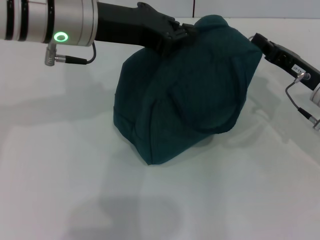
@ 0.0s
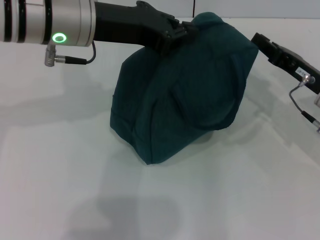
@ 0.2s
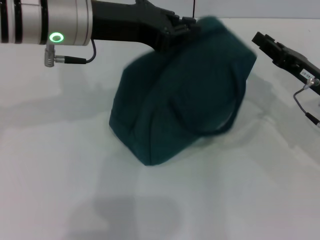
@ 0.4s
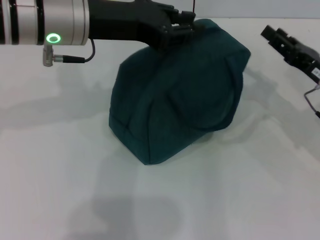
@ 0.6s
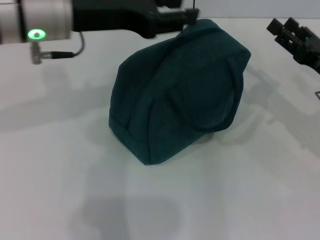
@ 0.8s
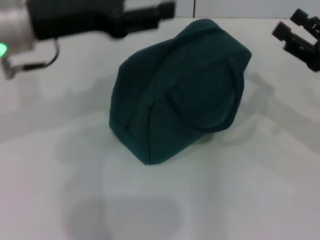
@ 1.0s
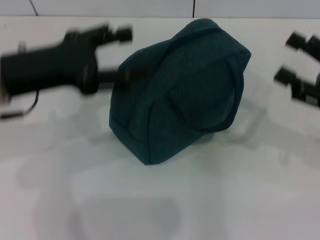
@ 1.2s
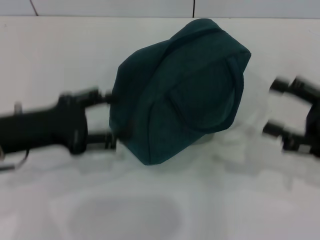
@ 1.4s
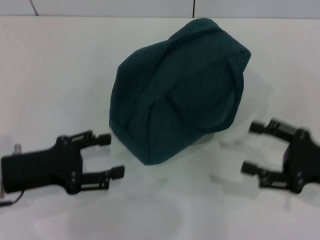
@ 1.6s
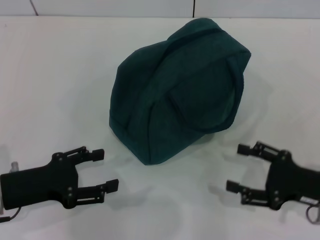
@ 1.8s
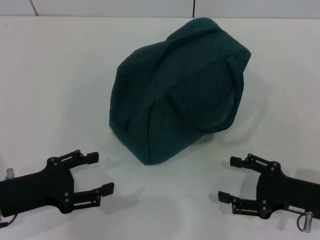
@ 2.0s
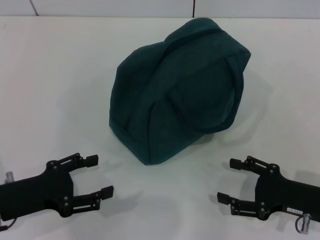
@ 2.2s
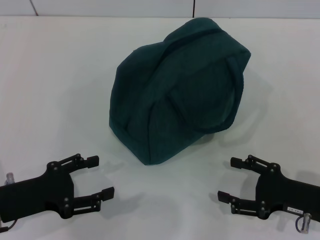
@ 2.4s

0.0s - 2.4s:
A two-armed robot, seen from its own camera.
Step, 0.2s - 0.6s: Hold the lunch bag with your left hand.
0.0s - 1.2s: The right gripper is displaced backward and to the right by some 10 cm, and opens; the left gripper is displaced to the left, backward and downward by about 15 cm, and opens.
1.2s - 2.4s: The grippers both shift downward and backward by approximately 15 cm.

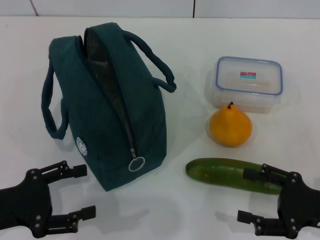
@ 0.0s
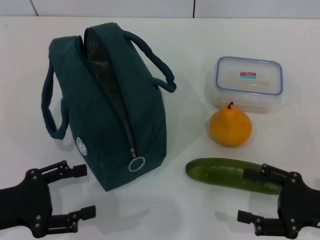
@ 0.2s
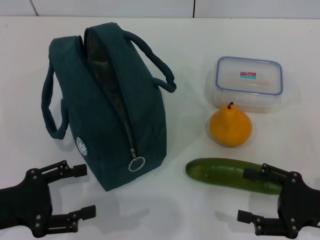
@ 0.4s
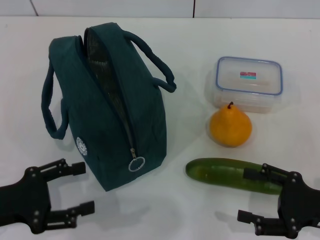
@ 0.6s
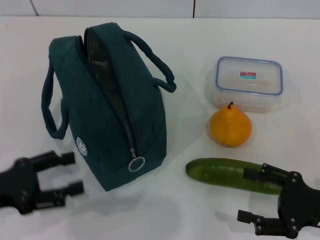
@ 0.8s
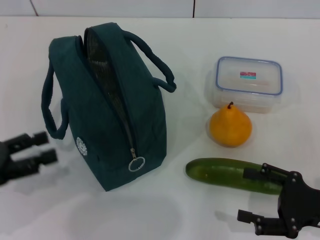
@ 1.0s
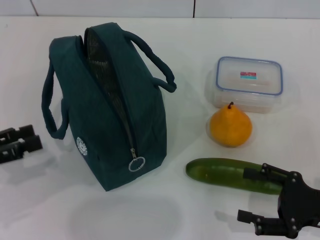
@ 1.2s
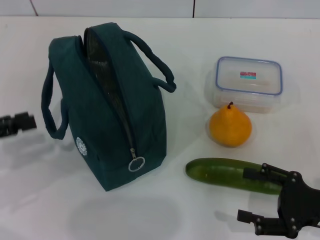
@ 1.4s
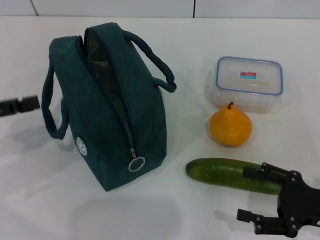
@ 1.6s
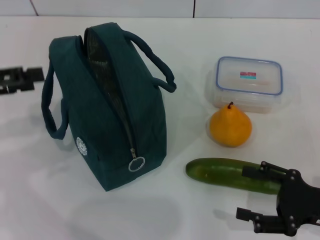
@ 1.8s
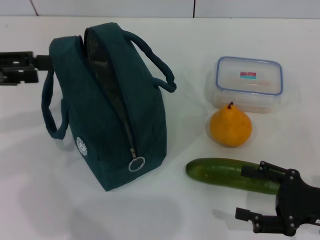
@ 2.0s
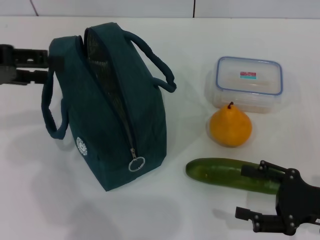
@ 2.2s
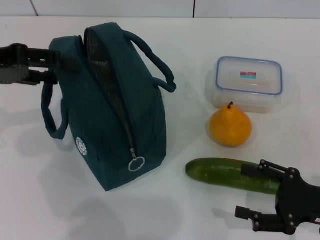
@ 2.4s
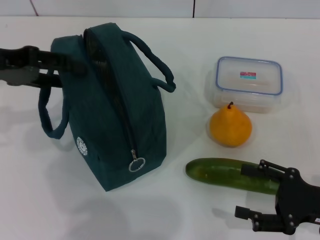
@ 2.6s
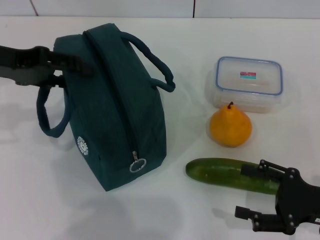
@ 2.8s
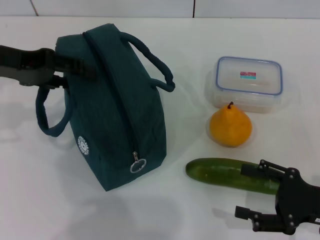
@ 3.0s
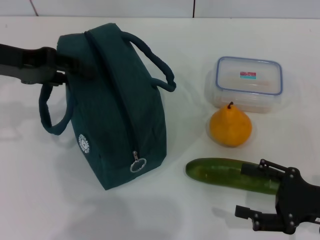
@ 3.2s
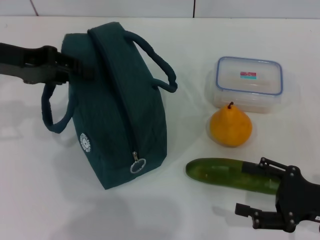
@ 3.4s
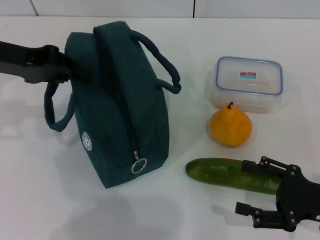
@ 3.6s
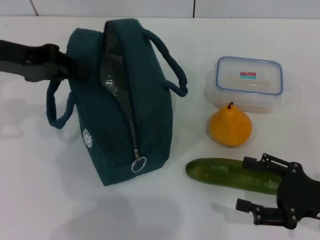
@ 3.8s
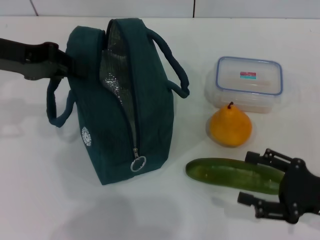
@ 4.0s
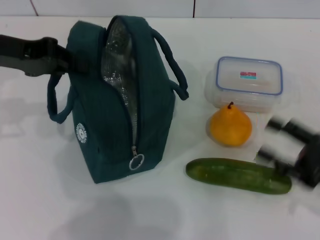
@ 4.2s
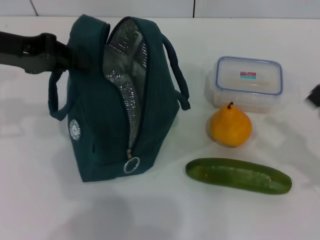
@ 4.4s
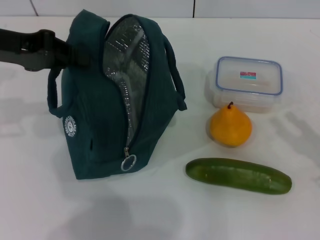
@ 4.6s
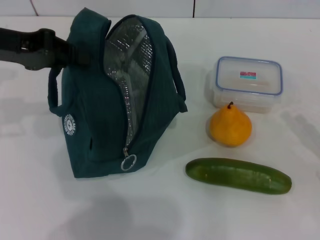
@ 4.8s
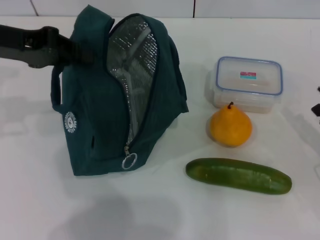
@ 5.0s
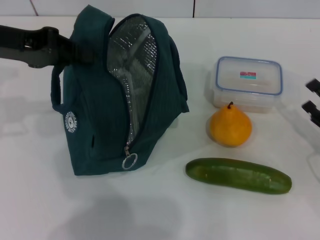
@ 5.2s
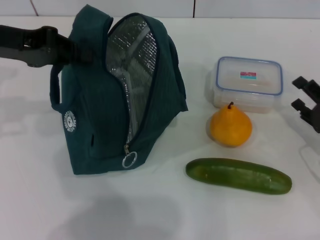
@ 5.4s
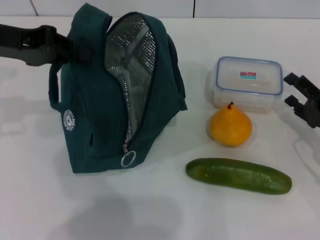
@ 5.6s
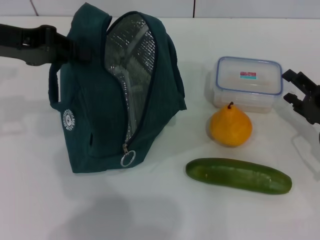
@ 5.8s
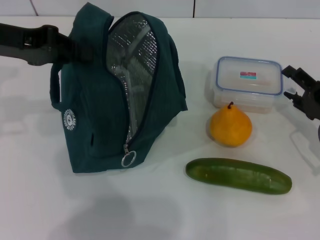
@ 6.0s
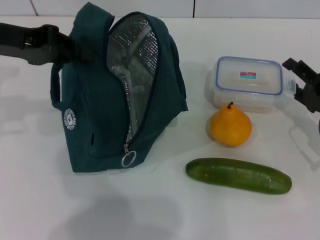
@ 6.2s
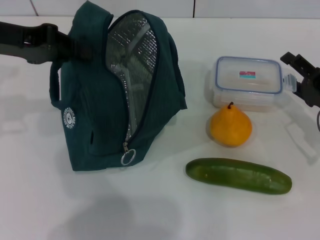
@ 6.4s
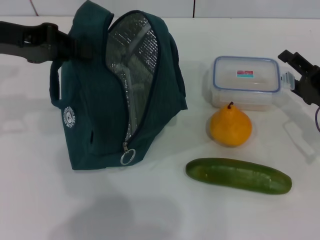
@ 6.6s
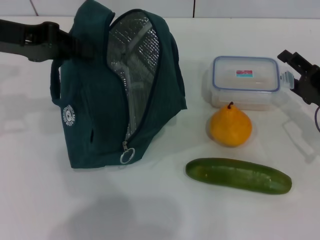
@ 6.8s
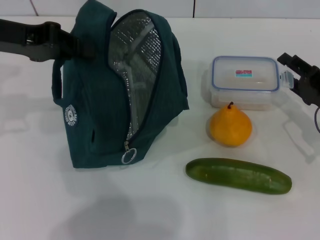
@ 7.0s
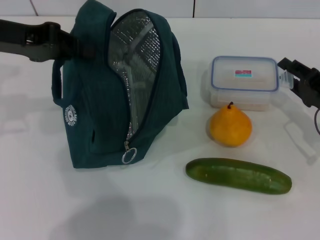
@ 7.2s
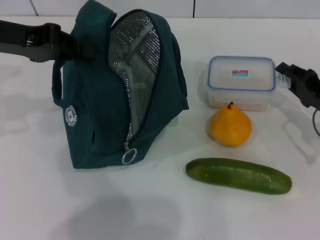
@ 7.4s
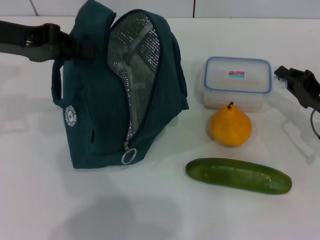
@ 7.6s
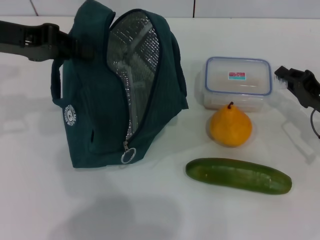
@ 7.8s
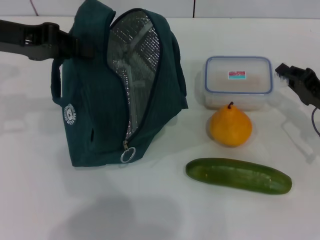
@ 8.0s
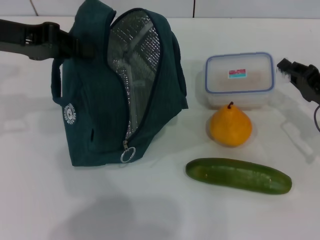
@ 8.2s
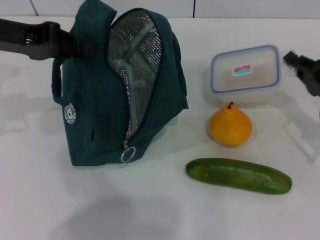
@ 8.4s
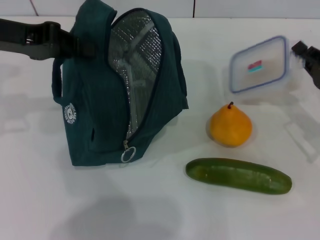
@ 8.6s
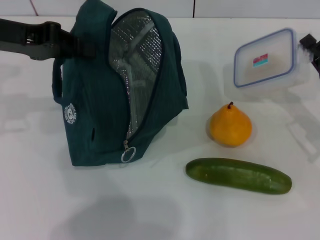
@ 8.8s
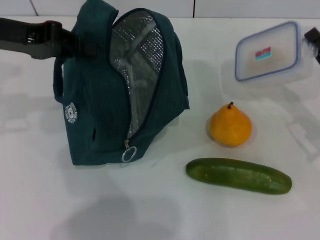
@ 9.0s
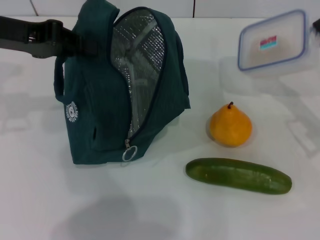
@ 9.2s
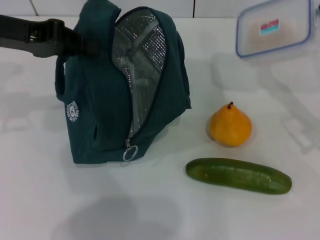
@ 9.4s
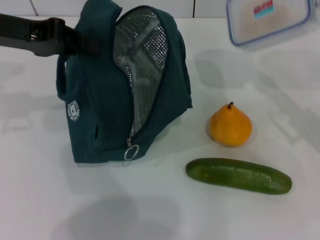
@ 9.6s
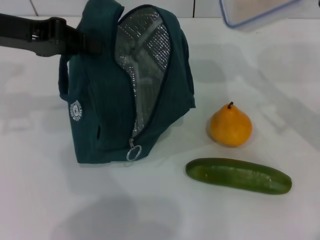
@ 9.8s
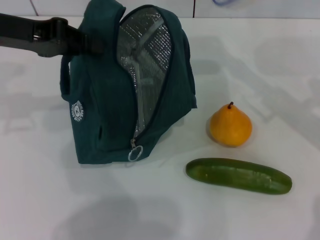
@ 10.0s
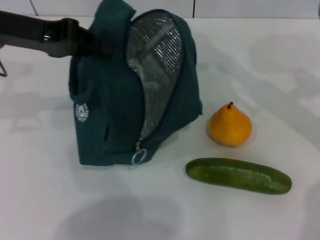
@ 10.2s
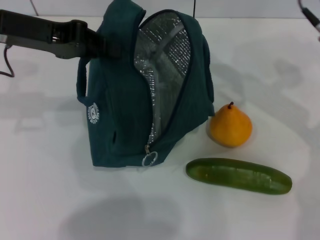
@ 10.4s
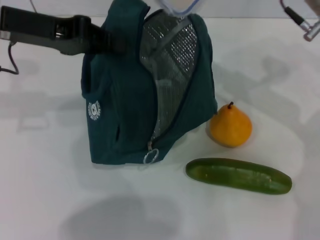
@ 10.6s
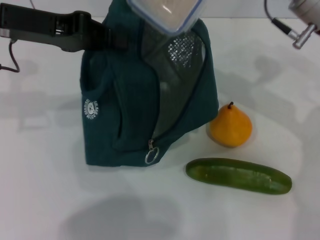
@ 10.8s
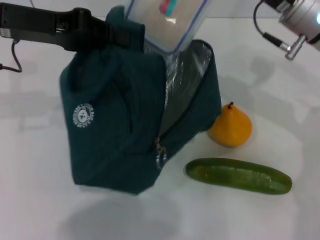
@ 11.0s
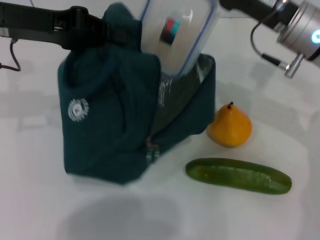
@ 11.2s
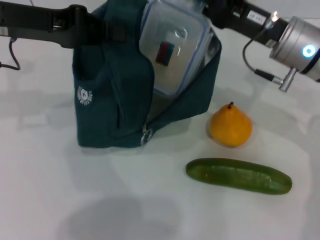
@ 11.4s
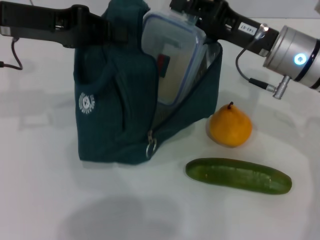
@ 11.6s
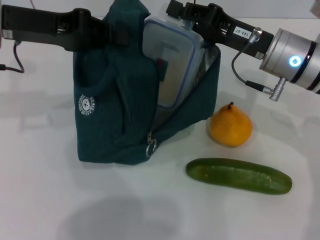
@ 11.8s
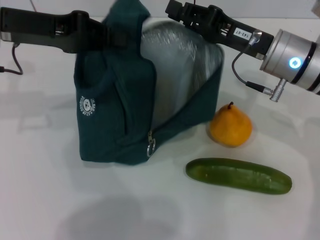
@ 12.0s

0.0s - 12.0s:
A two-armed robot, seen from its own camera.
Step, 0.0s - 3.6s: Hold the lunch bag with your left hand.
Step, 3.8s - 7.8s: Pick up the lunch box with your right hand.
Step, 8.0s - 12.0s: Place the lunch box into the lunch bag with your right hand.
0.0s - 1.6s: The left gripper travels upward, forward and to the left by some 10 cm.
1.6s - 3.0s: The left gripper moves forward, to the right and upward, roughly 15 cm.
3.0s - 4.4s: The left gripper closes up.
4.4s - 6.0s: The right gripper shifts about 10 cm forward.
6.0s - 7.6s: The right gripper closes its fingers.
7.6s - 9.0s: The grippers make only small movements.
9.0s - 10.4s: The right gripper is displaced upward, to the left and forward by approximately 20 cm.
10.4s - 12.0s: The right gripper heads downward, covering roughly 5 cm.

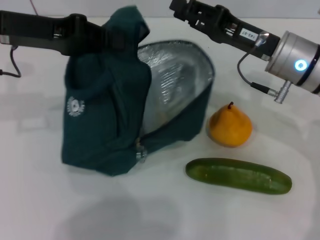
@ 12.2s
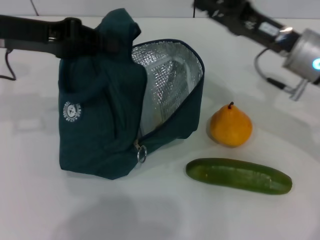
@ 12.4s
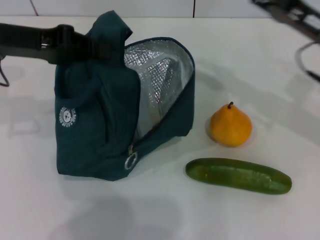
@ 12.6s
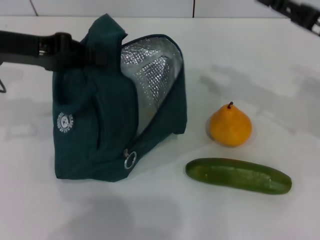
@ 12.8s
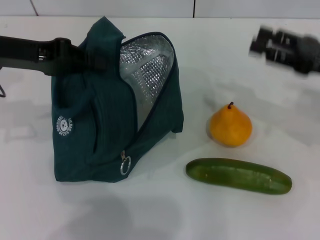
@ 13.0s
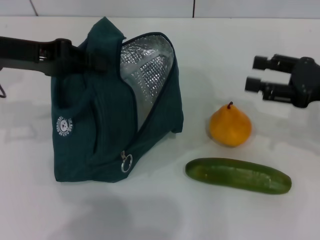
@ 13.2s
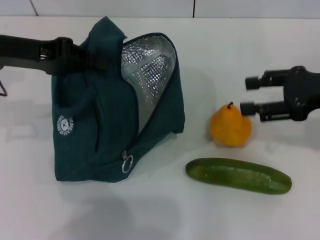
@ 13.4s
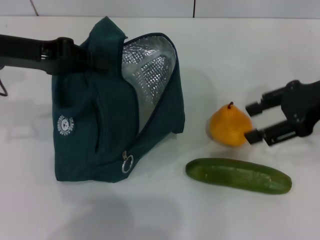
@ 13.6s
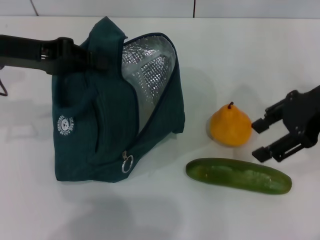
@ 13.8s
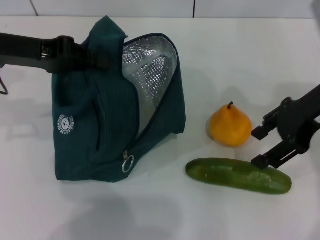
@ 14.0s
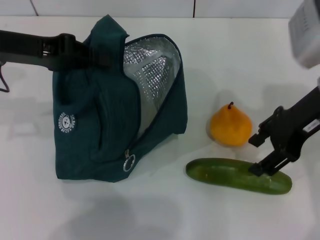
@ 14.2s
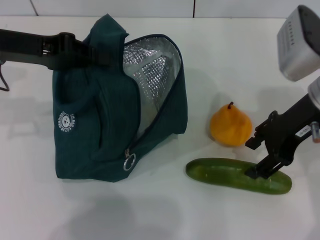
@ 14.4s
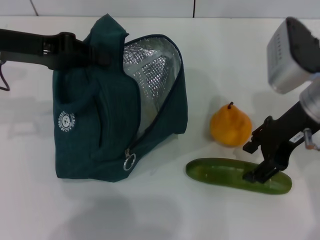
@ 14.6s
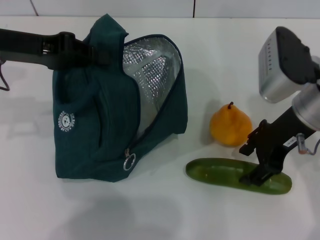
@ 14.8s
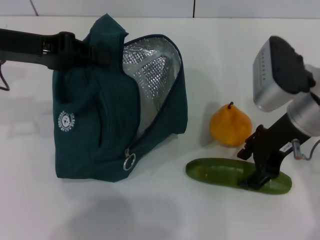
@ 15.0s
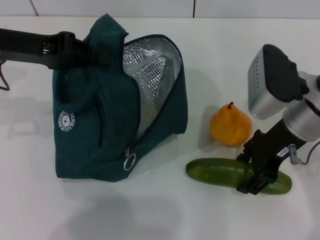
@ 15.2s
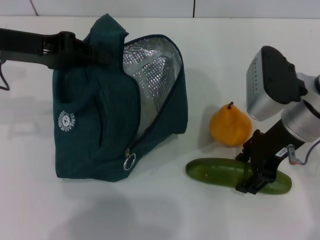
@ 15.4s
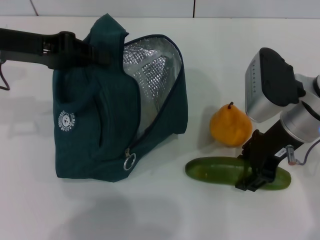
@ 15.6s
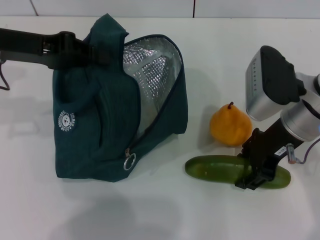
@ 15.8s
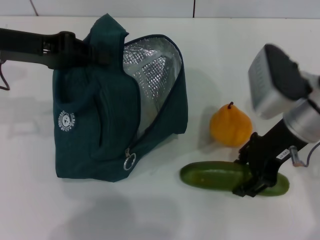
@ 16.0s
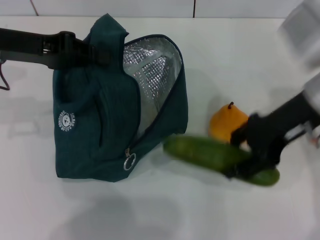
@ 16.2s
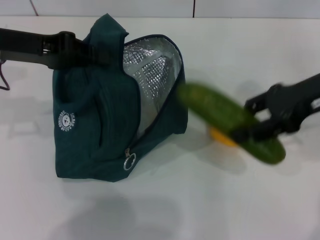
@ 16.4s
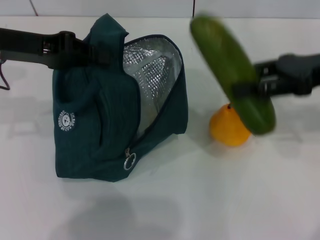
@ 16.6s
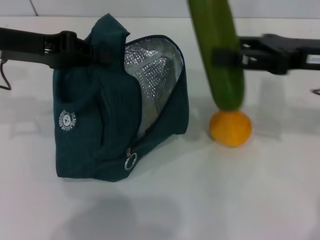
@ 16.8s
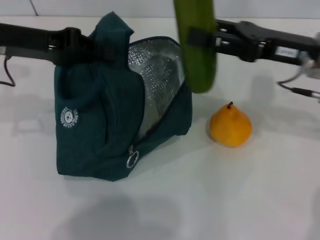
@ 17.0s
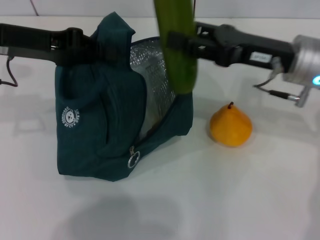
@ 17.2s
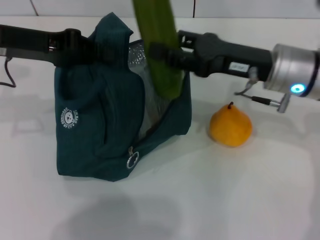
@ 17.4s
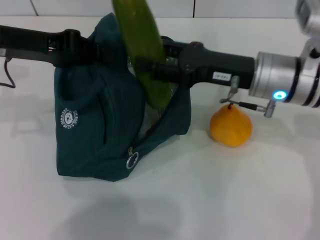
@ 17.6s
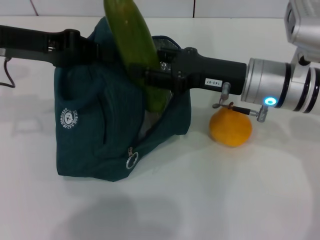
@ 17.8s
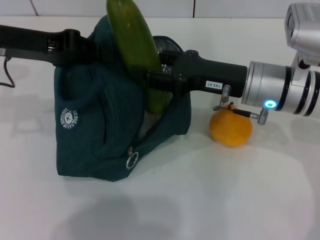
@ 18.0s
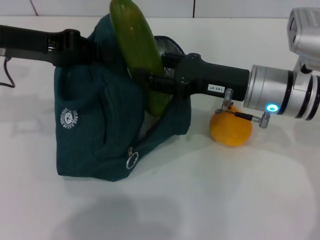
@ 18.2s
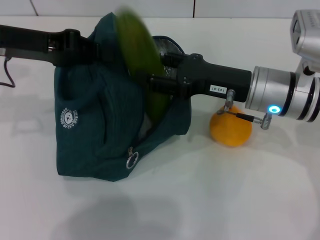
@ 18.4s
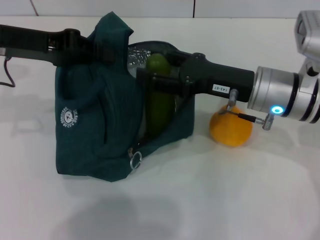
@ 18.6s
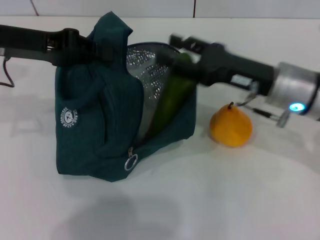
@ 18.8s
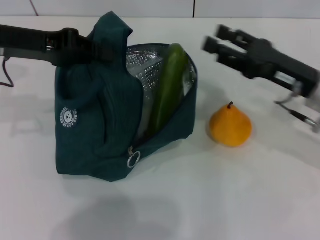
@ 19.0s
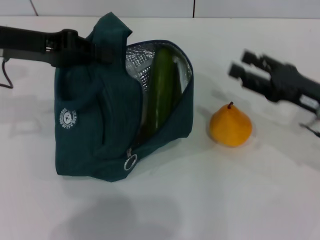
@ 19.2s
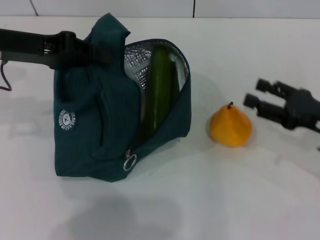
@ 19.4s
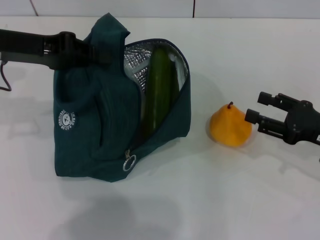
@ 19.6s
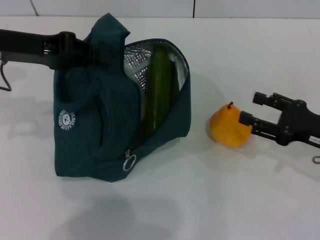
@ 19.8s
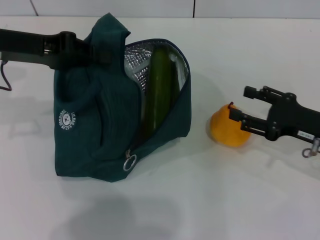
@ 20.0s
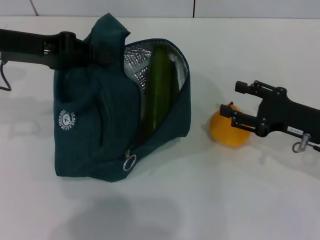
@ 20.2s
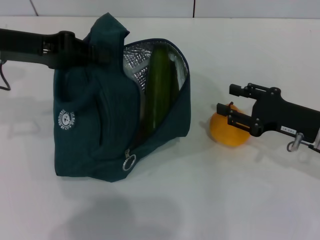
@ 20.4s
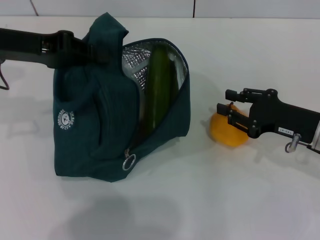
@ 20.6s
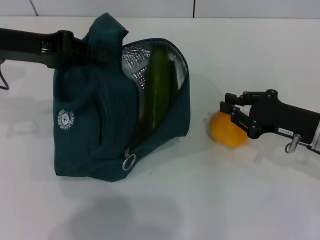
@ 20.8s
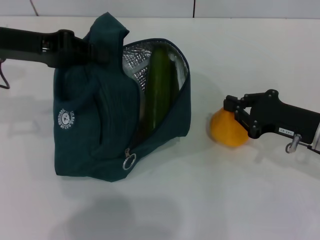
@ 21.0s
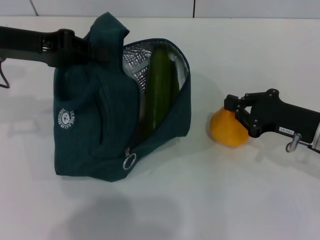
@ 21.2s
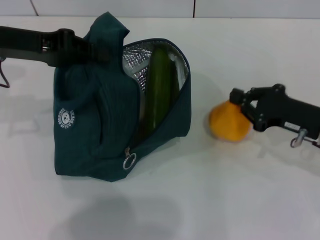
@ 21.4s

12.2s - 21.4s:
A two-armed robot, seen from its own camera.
Step, 12.2s - 15.6s: Pick up the cucumber with your right hand.
Step, 15.8s - 18.8s: Put the cucumber into the lunch bag with your right hand.
Step, 19.0s - 21.0s: Grab the pear with your right hand.
12.2s - 13.8s: The right gripper is displaced upward and to the right by roughly 10 cm, and opens.
13.8s - 15.2s: The right gripper goes about 10 cm downward and to the left.
15.2s - 16.8s: The right gripper shifts roughly 5 cm to the right.
16.8s - 18.4s: The right gripper heads to the left and downward, covering about 10 cm.
18.4s - 19.8s: The right gripper goes some 15 cm to the right.
19.8s - 21.4s: The right gripper closes up.
